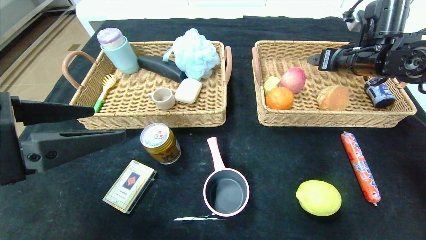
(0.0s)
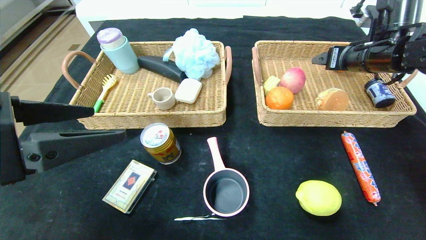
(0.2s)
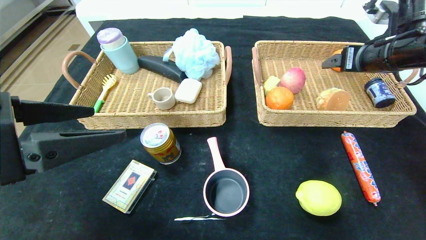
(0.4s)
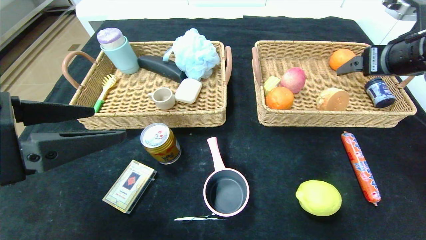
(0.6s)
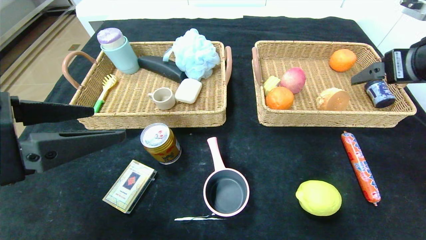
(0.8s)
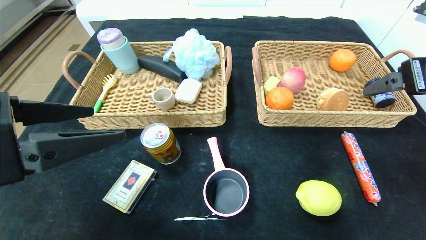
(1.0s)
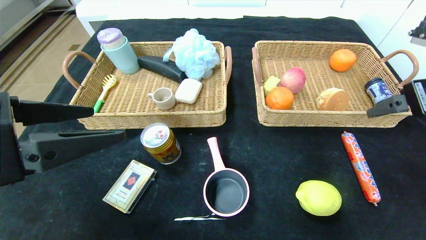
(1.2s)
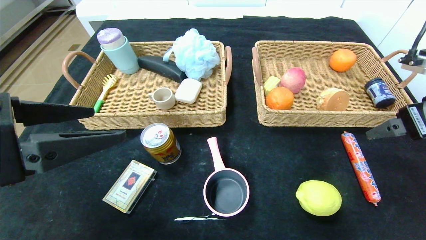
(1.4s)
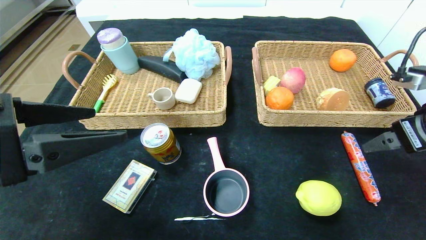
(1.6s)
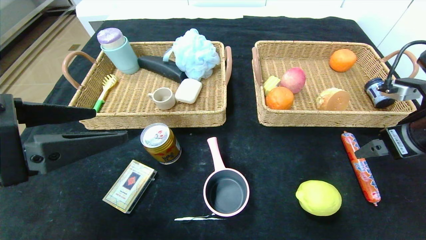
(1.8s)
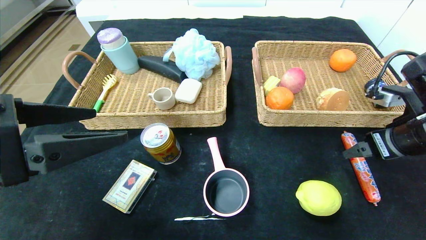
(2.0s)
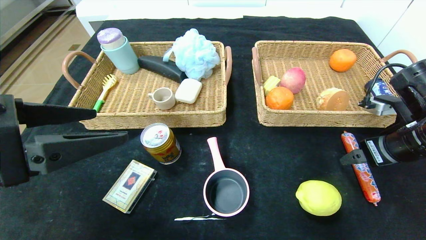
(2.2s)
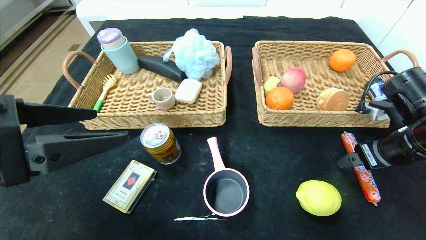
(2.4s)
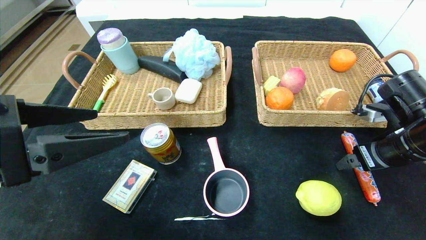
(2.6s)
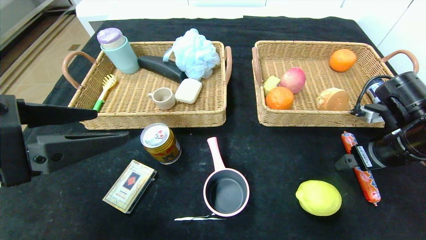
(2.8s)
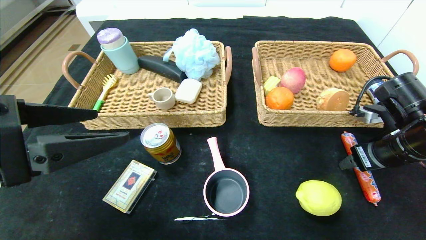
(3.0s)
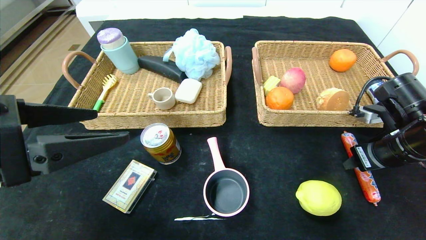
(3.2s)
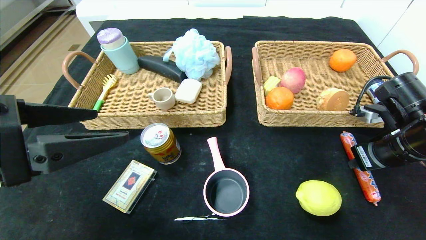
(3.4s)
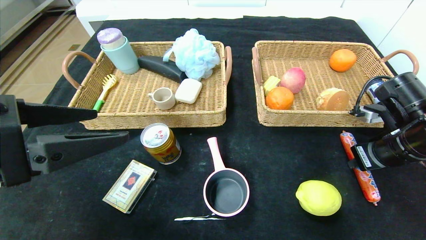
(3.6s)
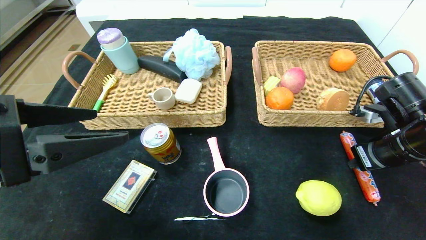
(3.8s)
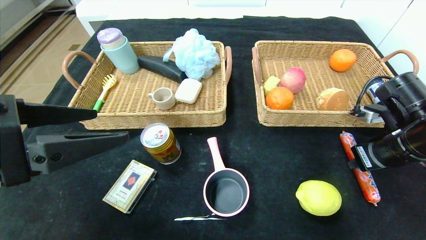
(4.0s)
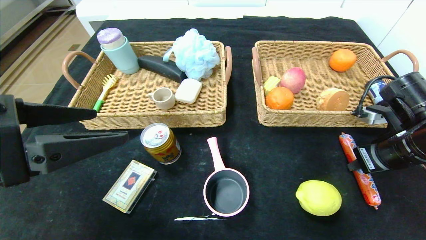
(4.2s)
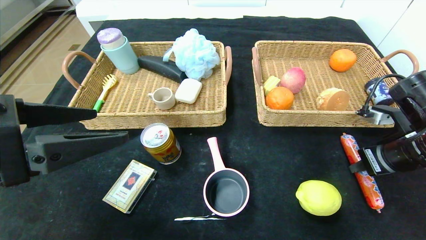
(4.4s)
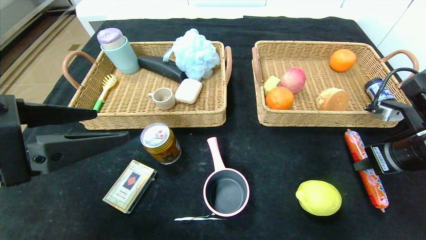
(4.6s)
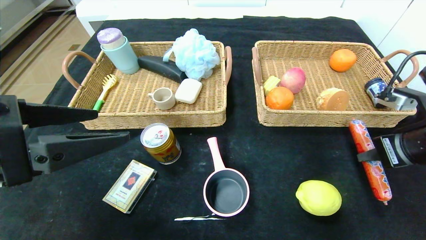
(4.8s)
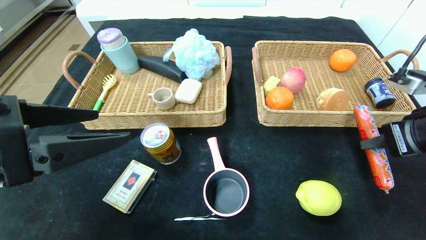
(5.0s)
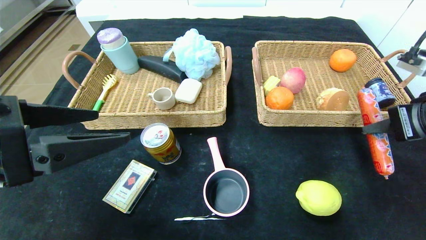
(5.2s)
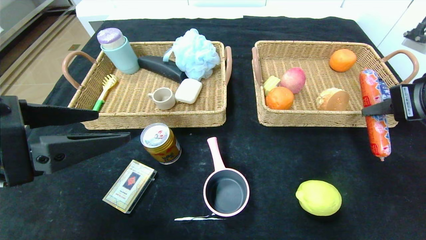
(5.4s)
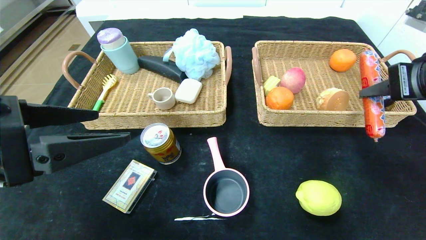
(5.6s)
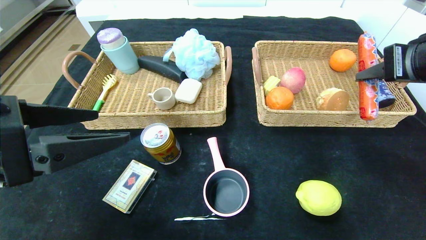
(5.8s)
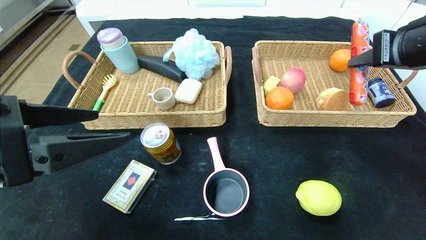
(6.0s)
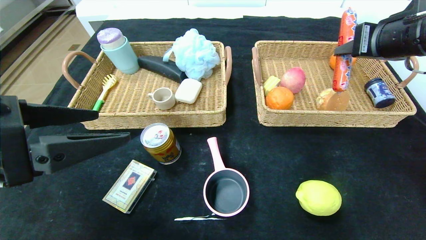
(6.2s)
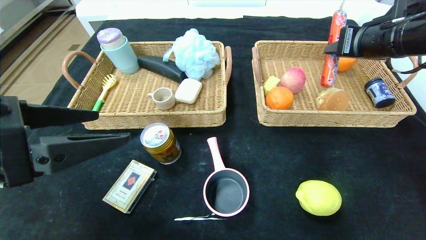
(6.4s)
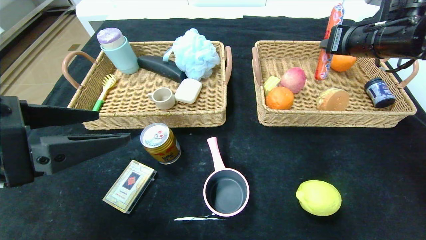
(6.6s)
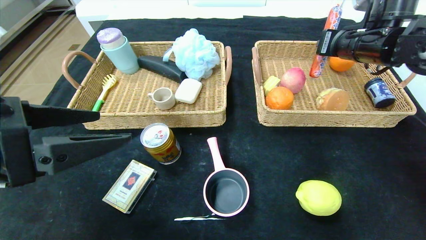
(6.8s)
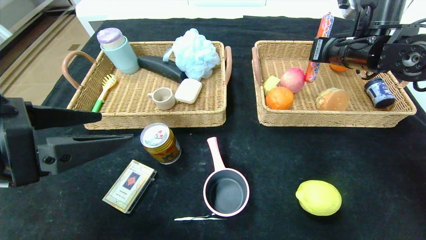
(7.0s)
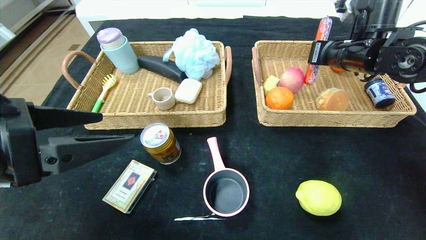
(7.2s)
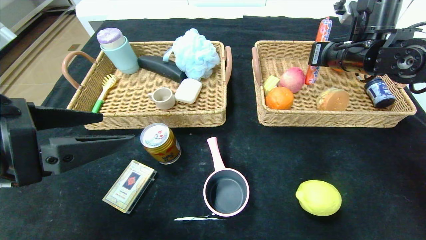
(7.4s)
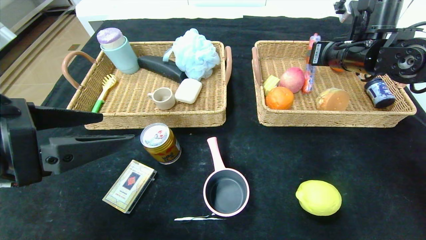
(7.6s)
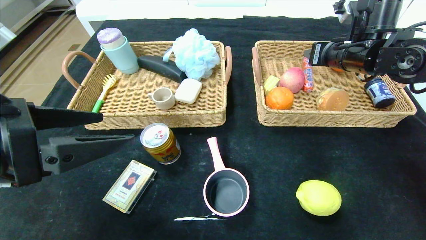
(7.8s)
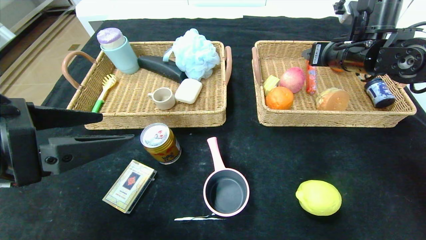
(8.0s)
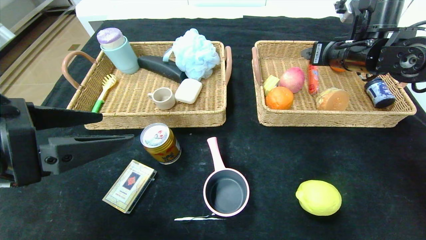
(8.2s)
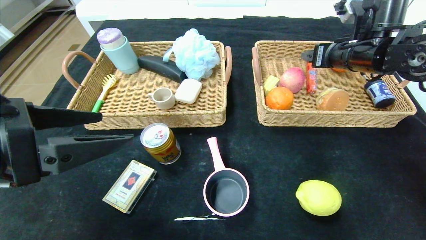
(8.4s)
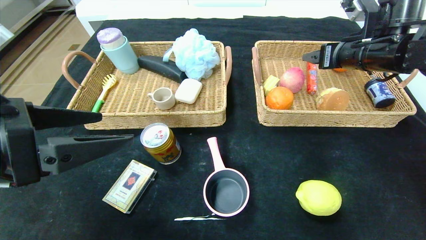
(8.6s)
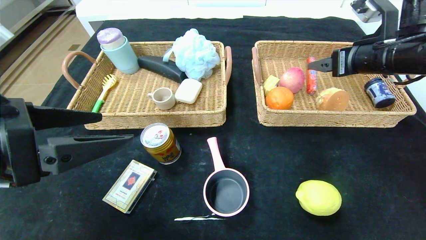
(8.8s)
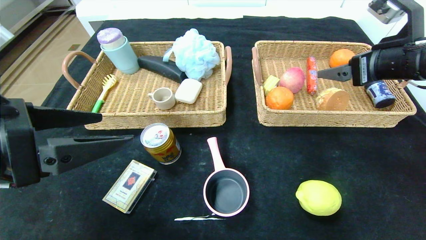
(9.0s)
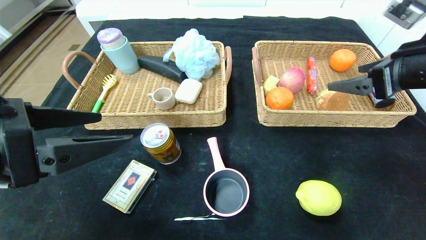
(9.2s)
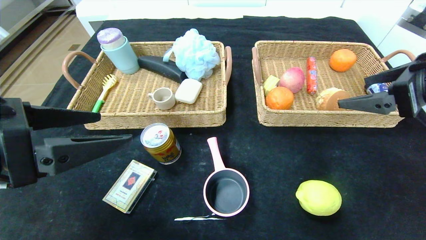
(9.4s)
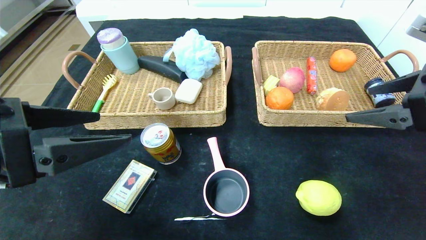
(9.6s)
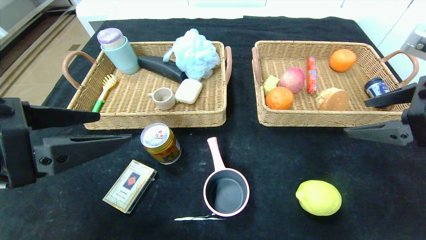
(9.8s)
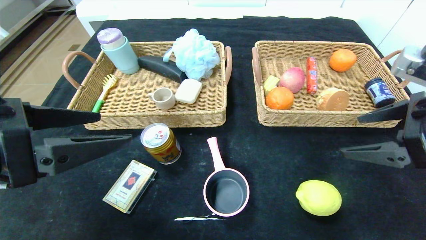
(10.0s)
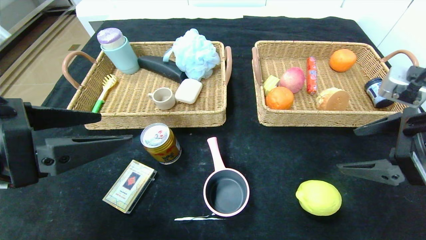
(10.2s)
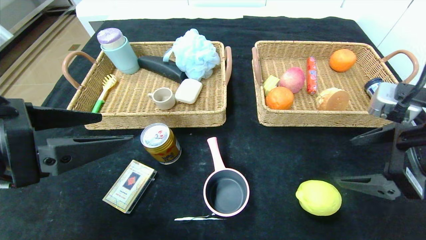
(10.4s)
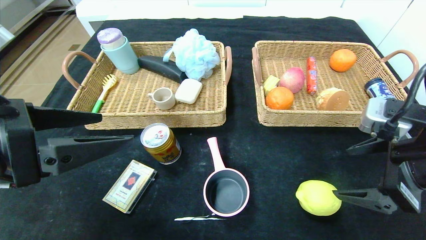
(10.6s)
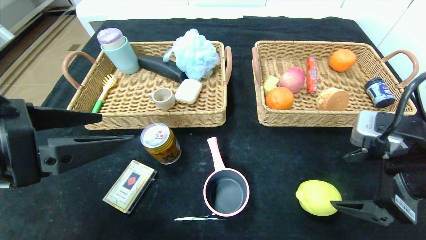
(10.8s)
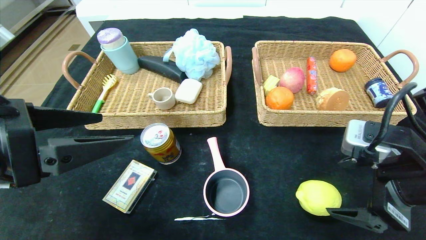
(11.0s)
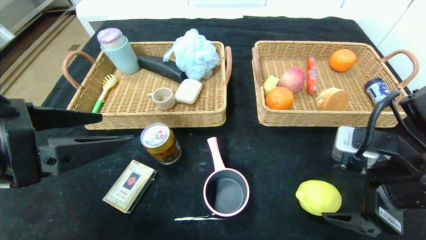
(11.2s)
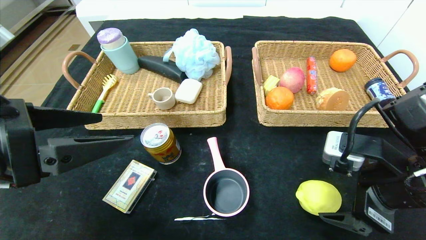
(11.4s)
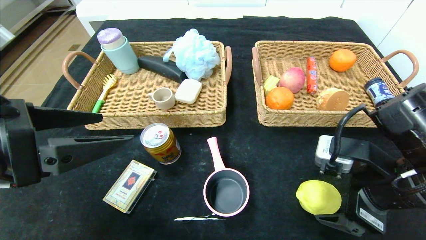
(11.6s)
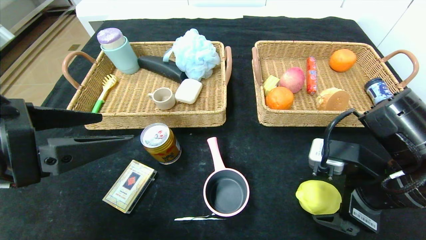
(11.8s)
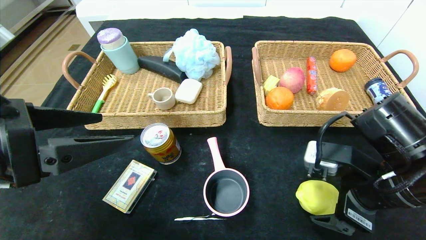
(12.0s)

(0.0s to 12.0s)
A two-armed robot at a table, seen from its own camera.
Step, 0.0s - 7.6s: Grasp the sausage and put it in the right basket.
0.0s - 1.6s: The right gripper goes approximately 20 cm backward.
1.6s - 3.0s: The right gripper travels downward by approximately 5 cm, and closes its fingers.
3.0s - 4.4s: The right gripper closes its fingers.
4.4s - 6.0s: The right gripper moves upward, some 15 cm.
6.0s - 7.6s: The right gripper moves forward, some 10 cm.
7.6s - 9.0s: The right gripper goes roughly 10 cm backward, and opens up.
9.0s - 10.4s: The right gripper goes roughly 10 cm backward and downward.
10.4s - 12.0s: The right gripper shifts approximately 10 cm downward and to the left.

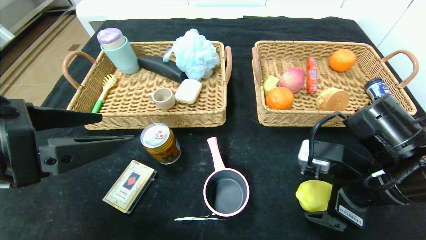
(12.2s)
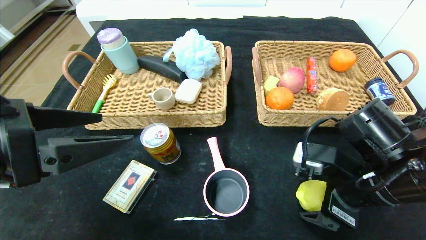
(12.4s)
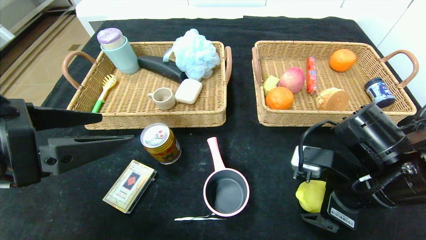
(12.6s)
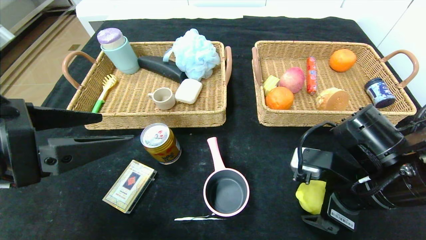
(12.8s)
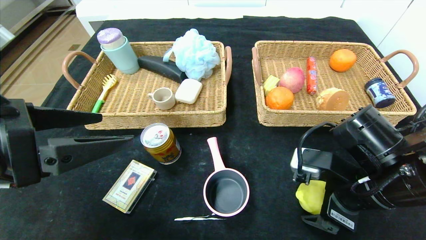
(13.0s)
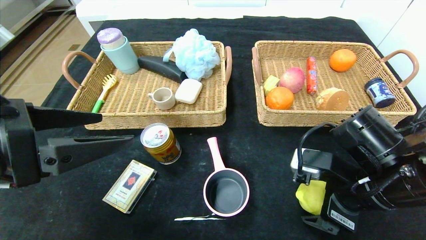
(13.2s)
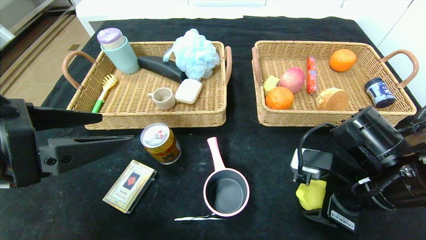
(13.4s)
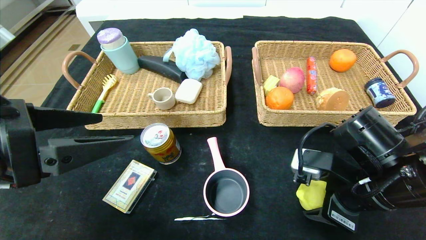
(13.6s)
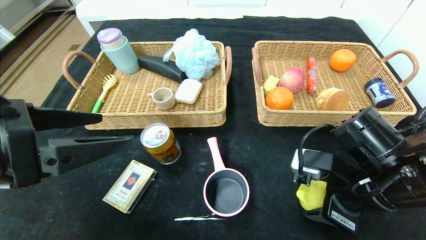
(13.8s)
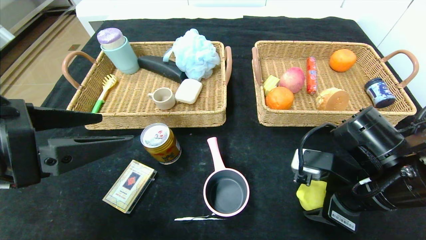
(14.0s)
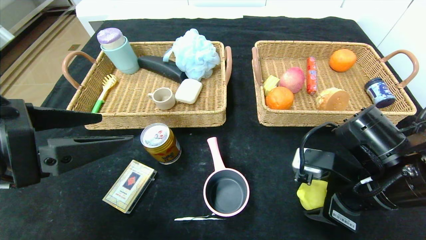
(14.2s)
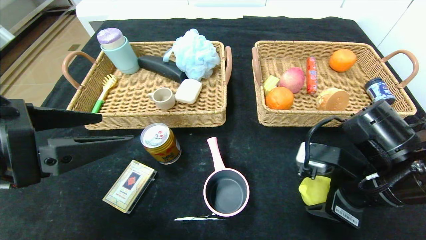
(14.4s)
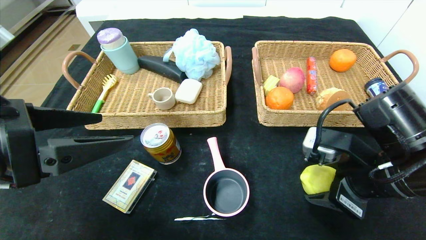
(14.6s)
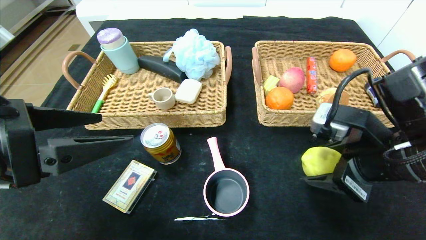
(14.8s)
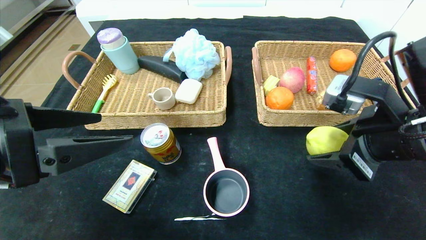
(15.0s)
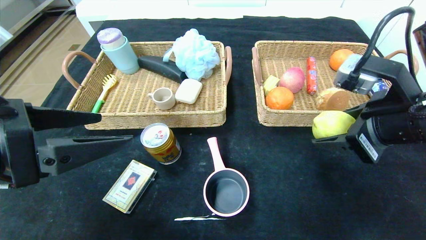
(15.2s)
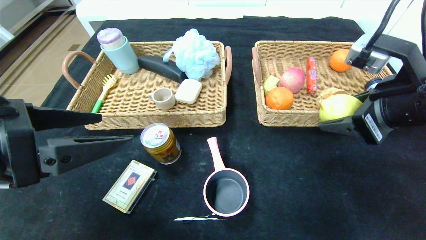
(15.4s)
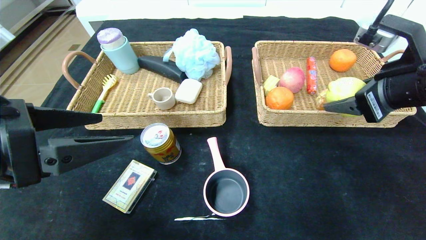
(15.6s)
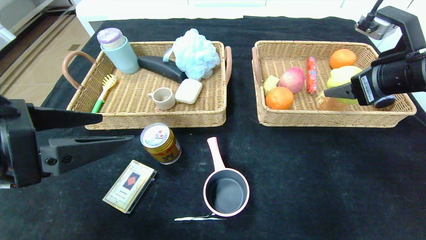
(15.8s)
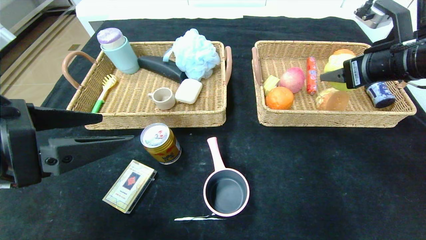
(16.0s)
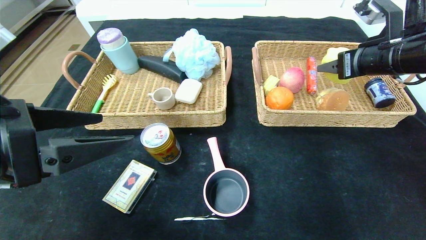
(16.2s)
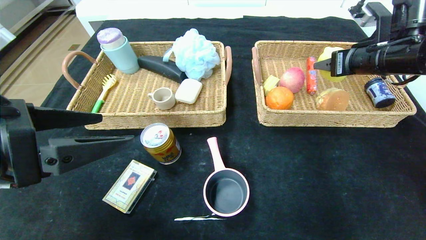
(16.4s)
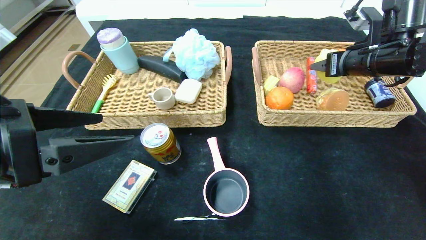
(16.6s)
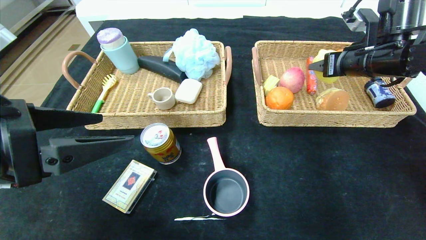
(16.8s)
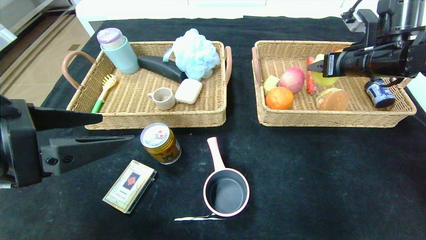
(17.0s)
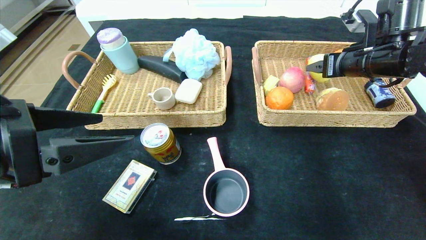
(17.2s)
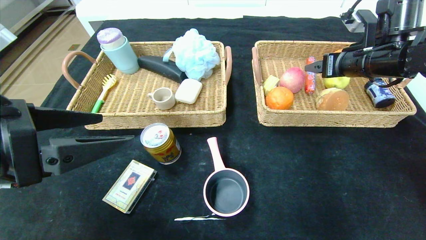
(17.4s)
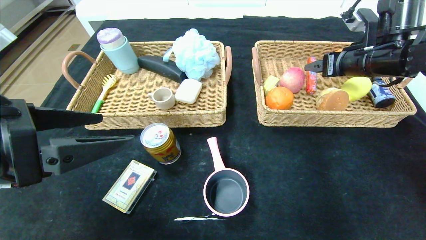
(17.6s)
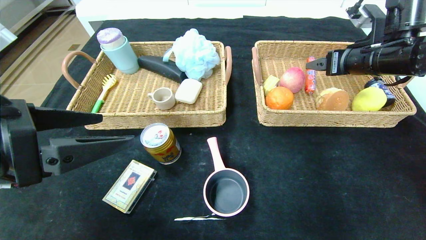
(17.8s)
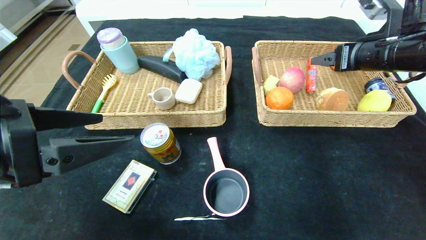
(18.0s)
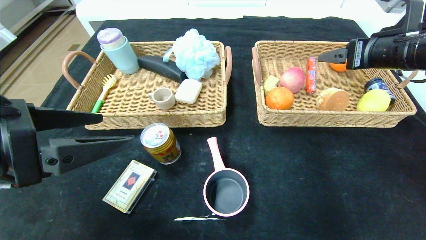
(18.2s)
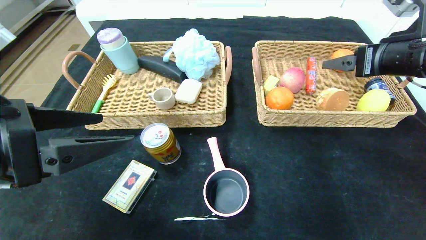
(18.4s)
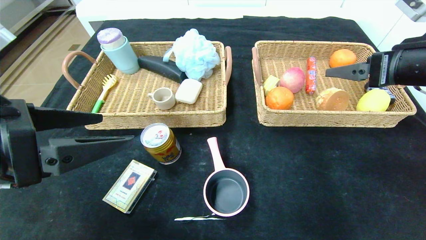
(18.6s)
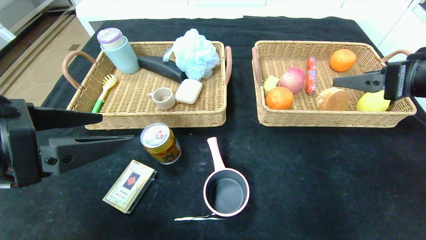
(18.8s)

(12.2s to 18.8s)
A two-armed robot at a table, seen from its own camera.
Step, 12.2s - 17.2s: Grasp the lemon and put it in the right basket.
12.2s - 13.8s: The right gripper closes up.
13.8s - 15.4s: The right gripper shifts about 10 cm upward.
15.4s - 17.2s: The right gripper heads forward, covering approximately 15 cm.
17.2s - 18.8s: The right gripper is displaced backward by about 15 cm.
